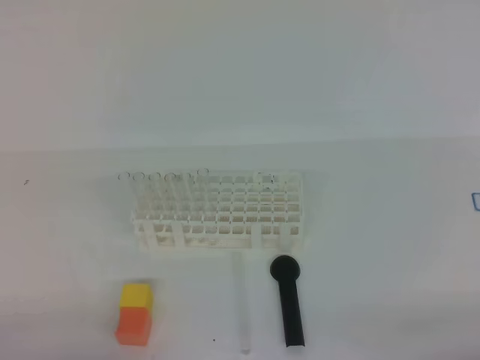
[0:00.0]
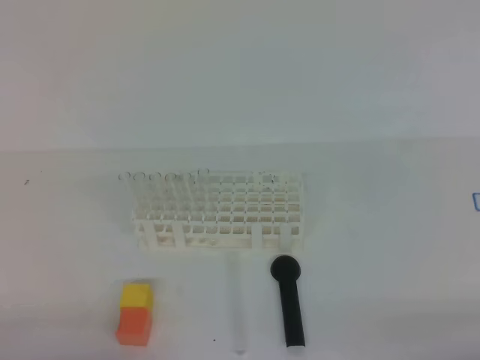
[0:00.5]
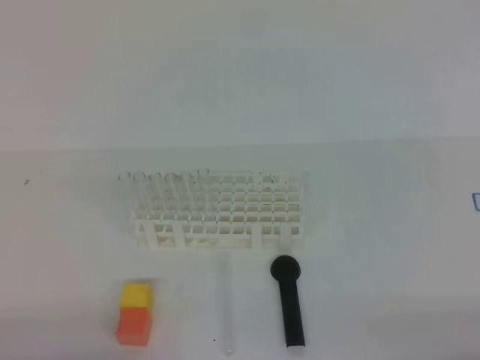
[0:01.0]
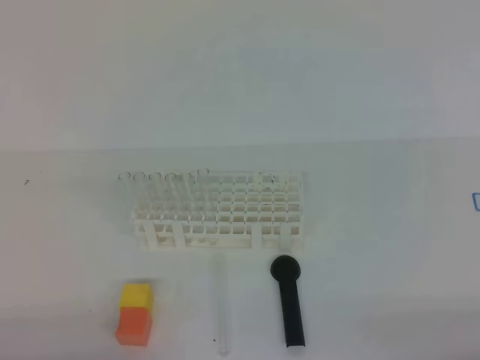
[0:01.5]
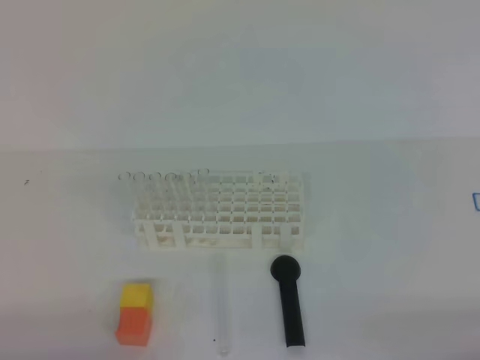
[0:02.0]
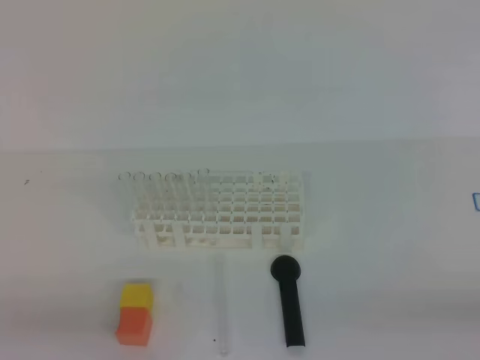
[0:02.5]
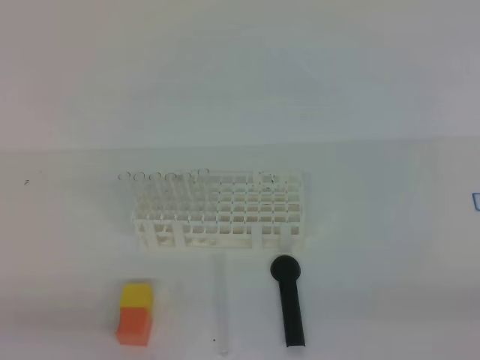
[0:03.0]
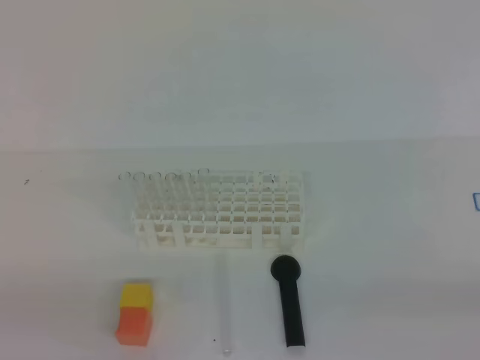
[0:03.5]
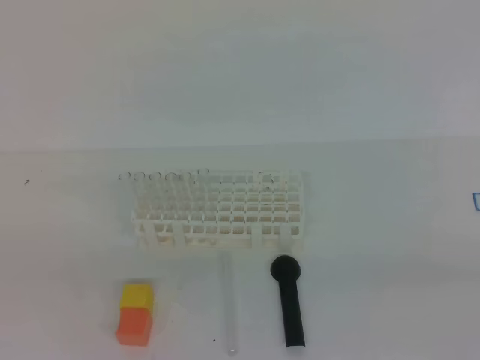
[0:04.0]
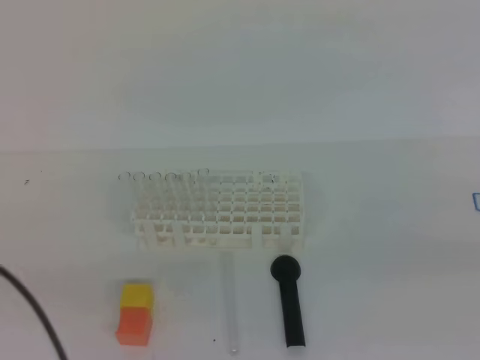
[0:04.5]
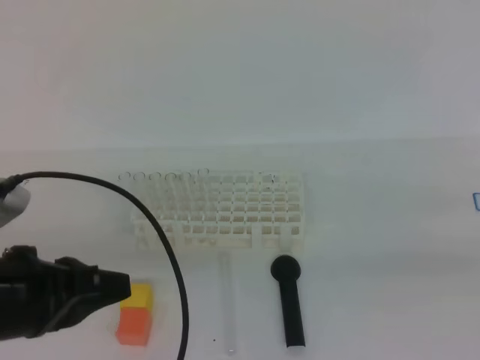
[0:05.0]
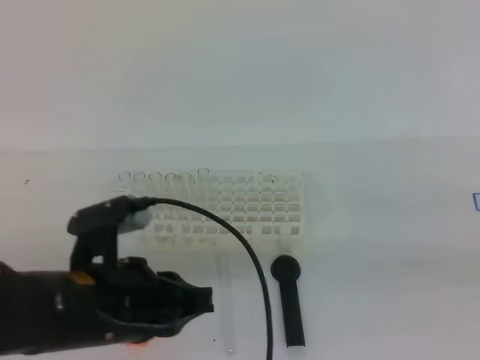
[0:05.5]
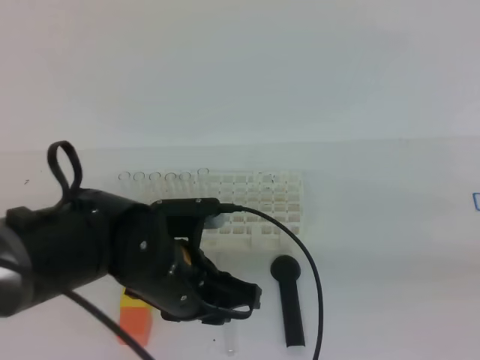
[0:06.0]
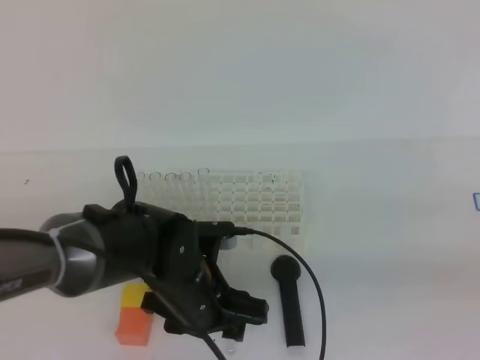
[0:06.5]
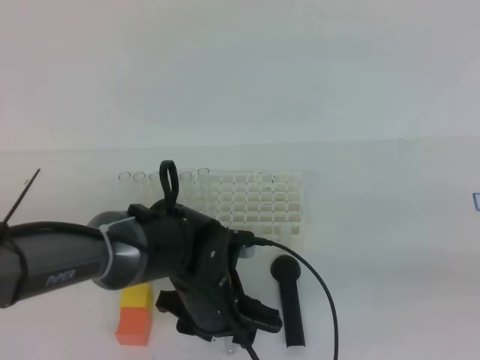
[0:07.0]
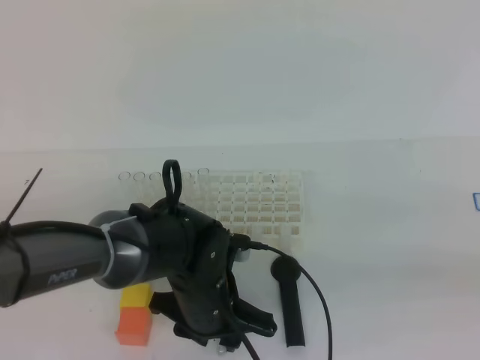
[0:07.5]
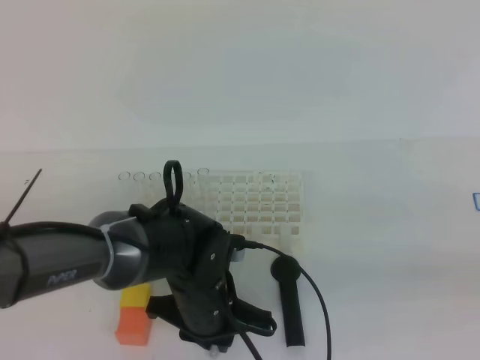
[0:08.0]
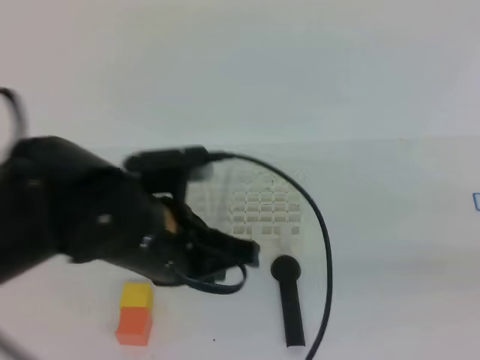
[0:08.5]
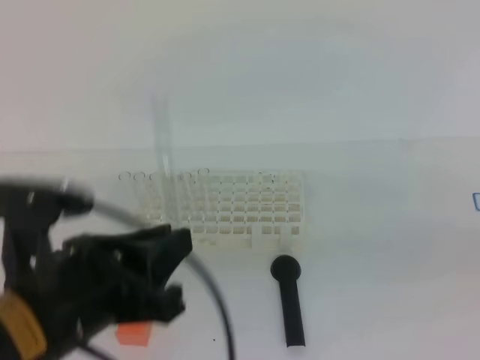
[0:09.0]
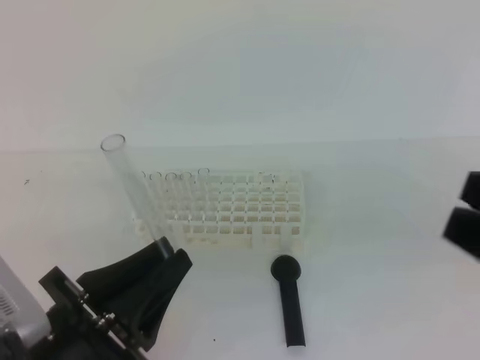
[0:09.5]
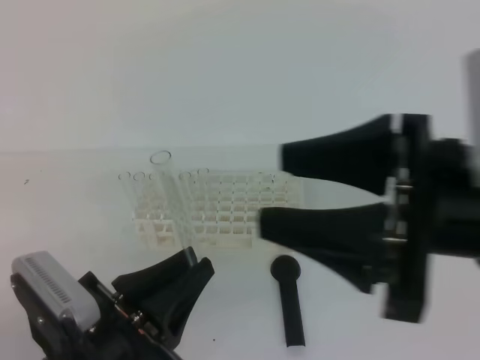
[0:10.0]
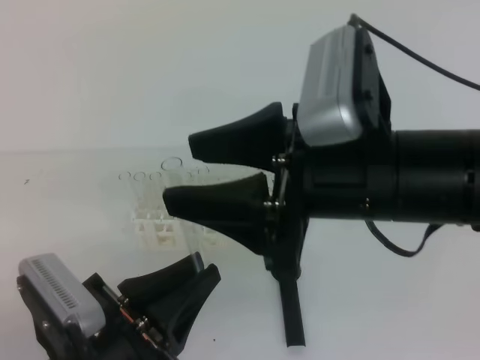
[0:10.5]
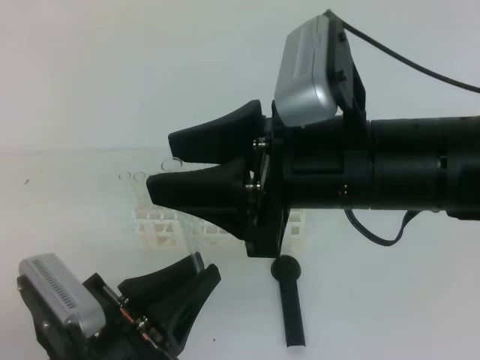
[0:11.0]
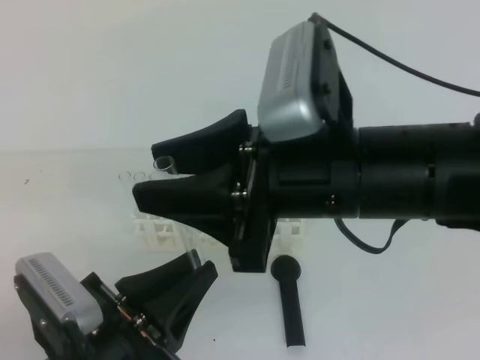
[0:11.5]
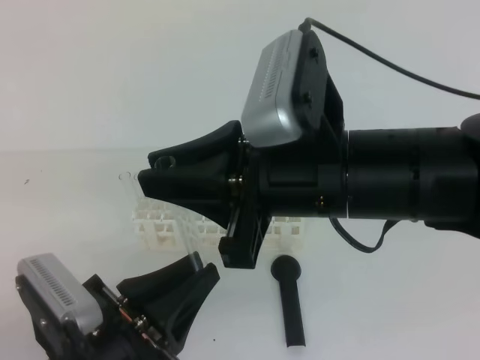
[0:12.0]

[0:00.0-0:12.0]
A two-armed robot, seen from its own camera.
0:00.0 to 0:02.0: Both grippers stay put.
0:04.0 to 0:06.0: The right gripper is displaced forward by roughly 10 cm; the left gripper shifts roughly 30 cm to the right, forward and downward, and opens its fingers.
0:06.0 to 0:08.0: The left gripper shifts approximately 5 cm downward, and opens, then closes once more.
0:08.0 to 0:10.0: The right gripper goes approximately 15 cm to the left, forward and upward, and opens up, while the left gripper heads backward, to the left and upward, covering some 20 cm.
0:10.0 to 0:12.0: The right gripper travels to the left by roughly 10 cm, and closes.

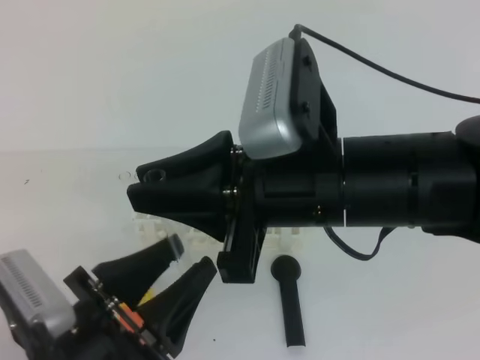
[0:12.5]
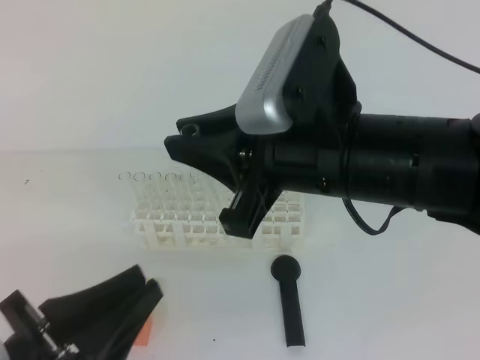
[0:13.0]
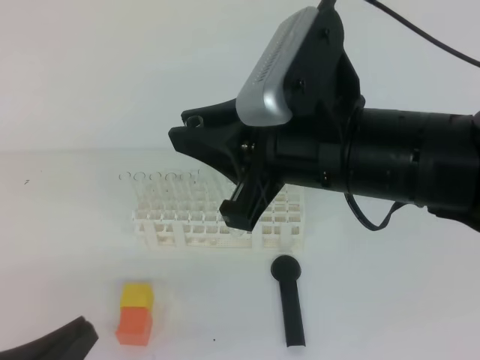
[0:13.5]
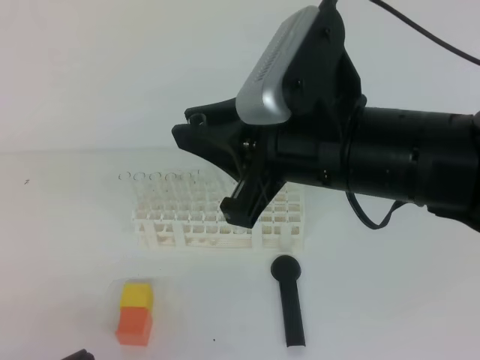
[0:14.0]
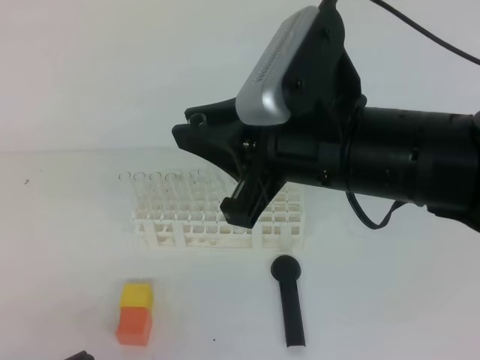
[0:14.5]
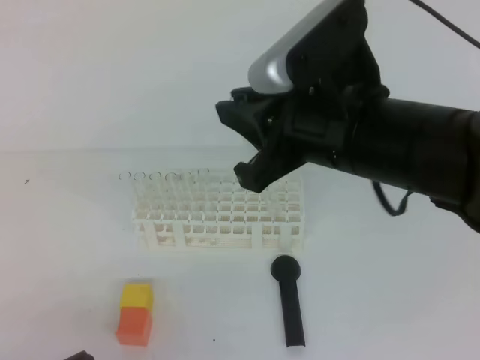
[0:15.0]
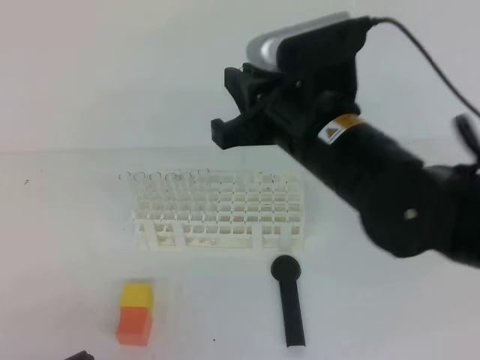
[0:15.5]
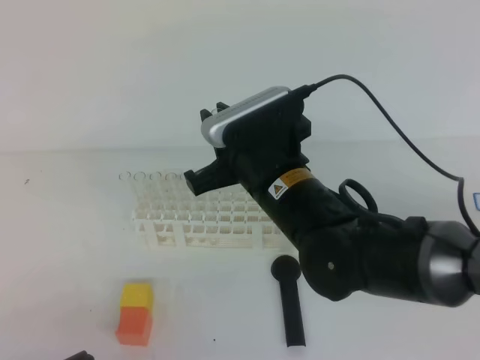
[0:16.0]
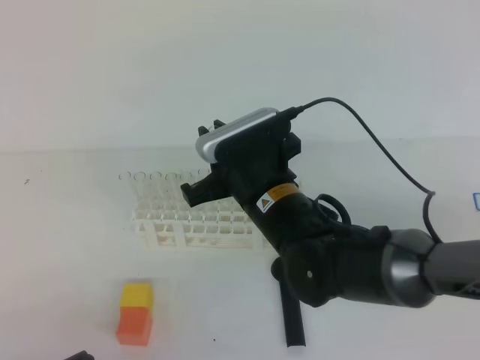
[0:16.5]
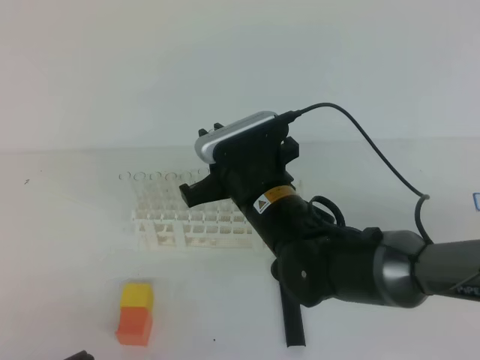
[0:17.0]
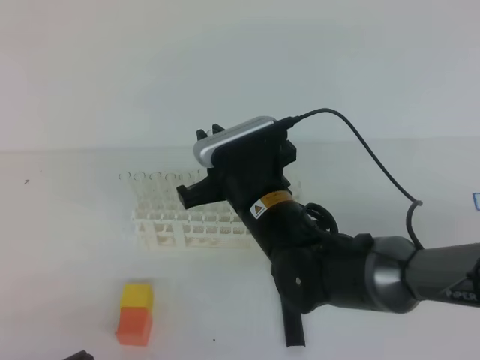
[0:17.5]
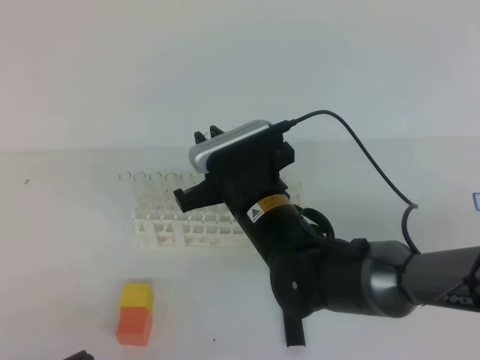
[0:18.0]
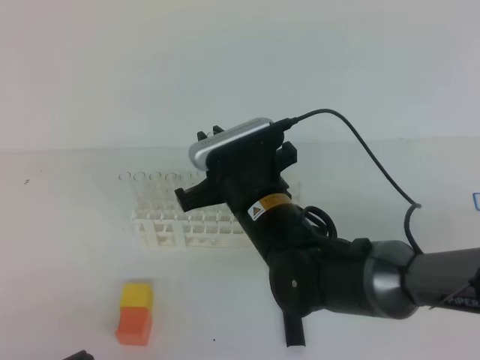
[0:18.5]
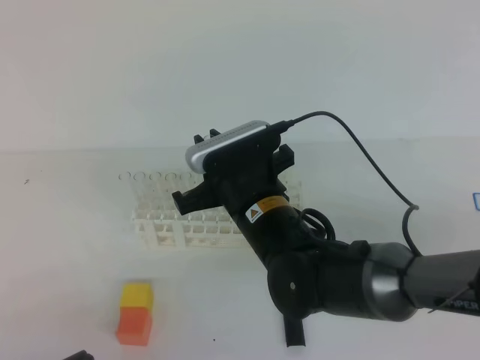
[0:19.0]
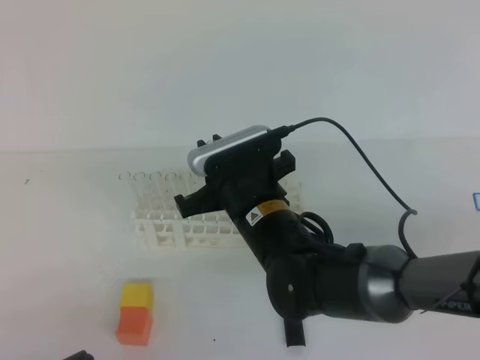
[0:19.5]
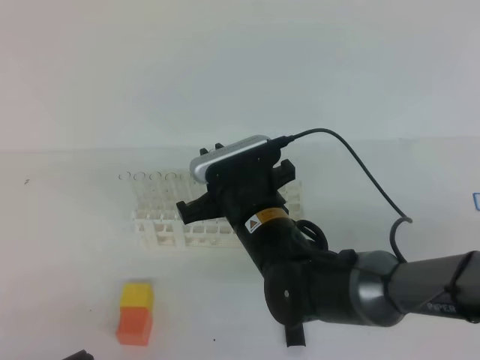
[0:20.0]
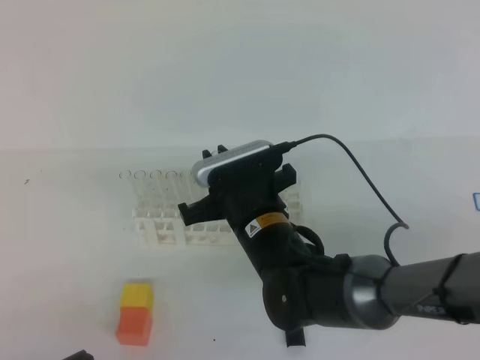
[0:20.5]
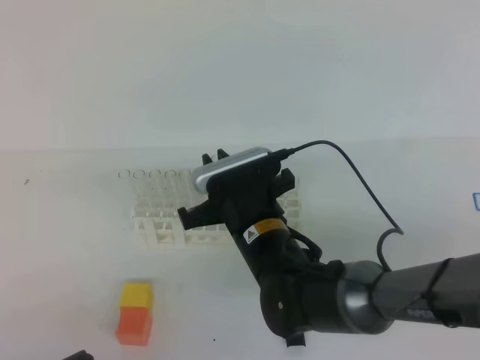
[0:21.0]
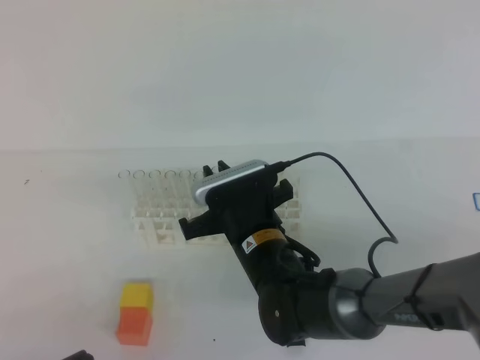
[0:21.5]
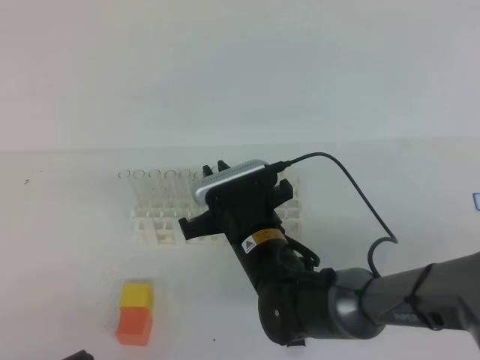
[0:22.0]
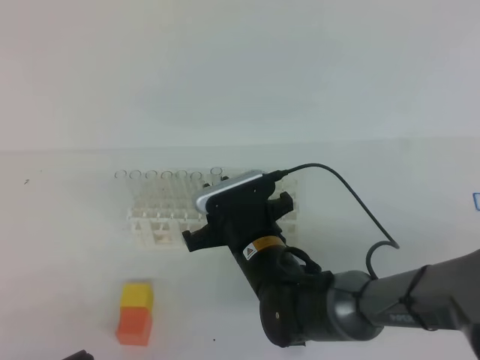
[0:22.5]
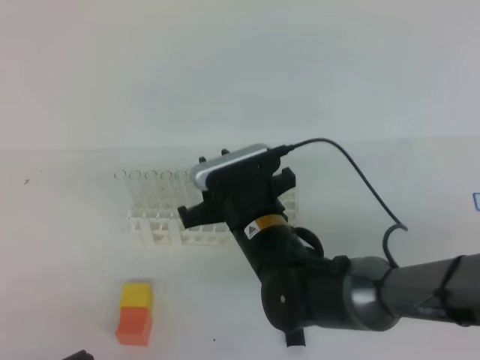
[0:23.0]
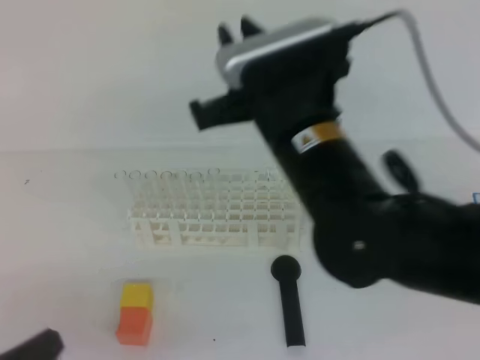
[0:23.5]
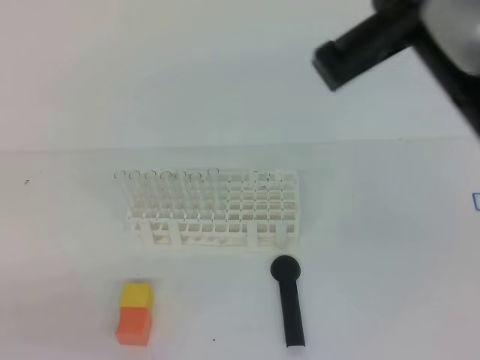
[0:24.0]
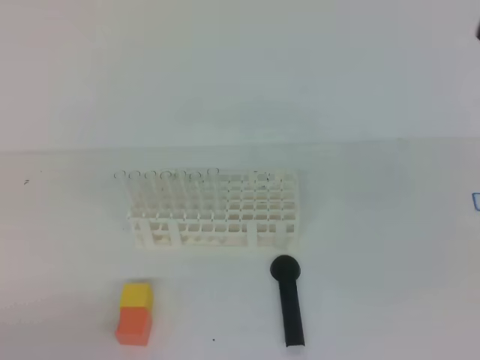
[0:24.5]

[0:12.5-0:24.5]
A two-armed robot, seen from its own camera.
0:12.5 to 0:14.5: The left gripper moves to the left and backward, some 10 cm, and closes up.
0:14.5 to 0:16.5: The right gripper moves downward, forward and to the left, about 15 cm.
0:16.5 to 0:20.5: The grippers move only a little.
0:20.5 to 0:22.5: The grippers move only a little.
0:22.5 to 0:24.5: The right gripper moves upward, to the right and backward, roughly 40 cm, and closes up, while the left gripper is displaced to the left by about 5 cm.
